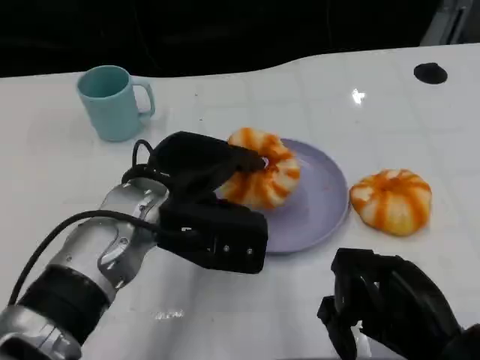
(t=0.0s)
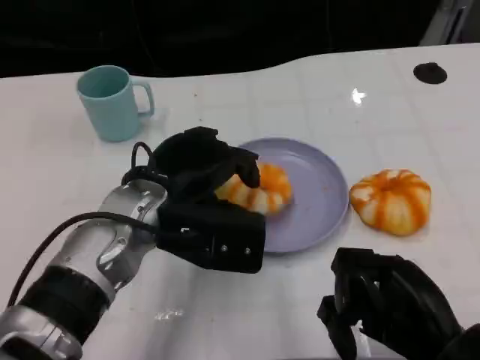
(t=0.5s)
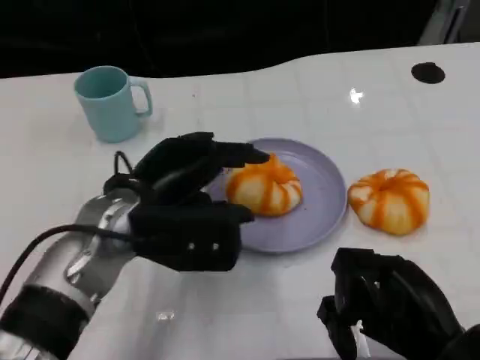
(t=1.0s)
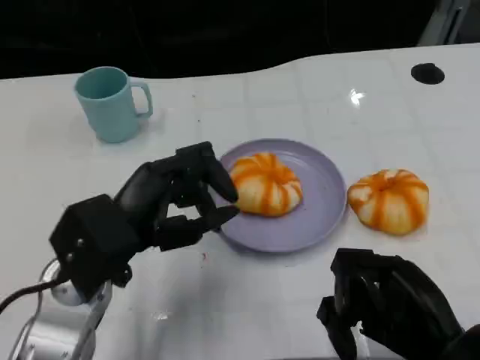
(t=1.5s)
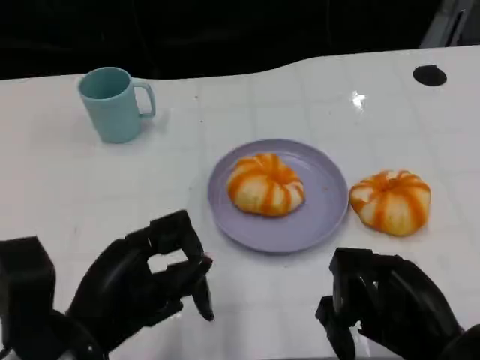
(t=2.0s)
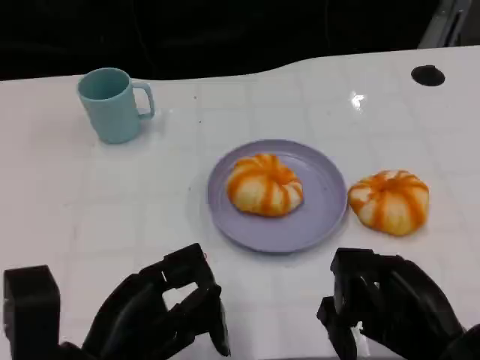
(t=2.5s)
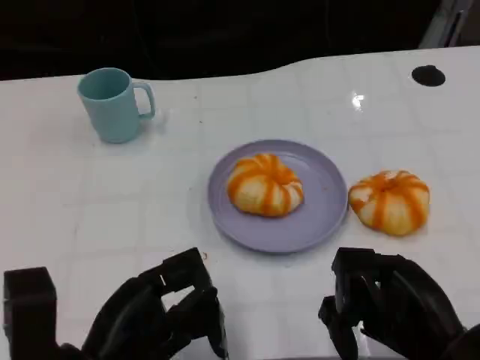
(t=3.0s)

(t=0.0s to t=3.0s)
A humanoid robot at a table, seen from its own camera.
Task of the whole recording: Grasp the bread from the table and place it into the plate.
t=0.0s - t=1.5s: The left hand shifts about 10 cm to the left and backward.
t=1.5s - t=3.0s: The left hand shifts approximately 10 cm backward.

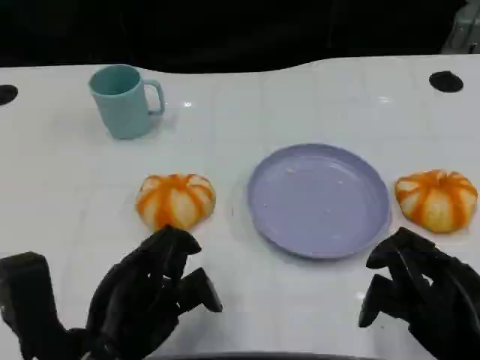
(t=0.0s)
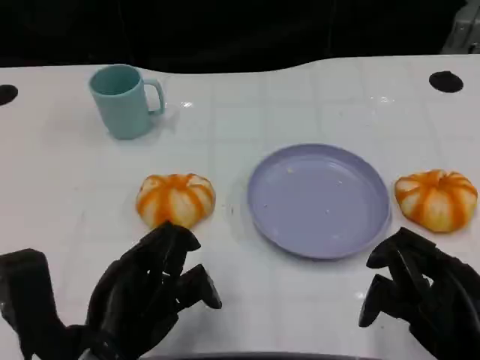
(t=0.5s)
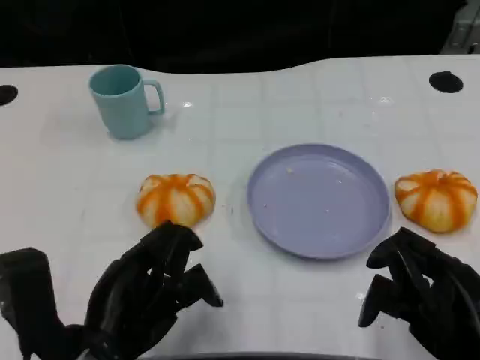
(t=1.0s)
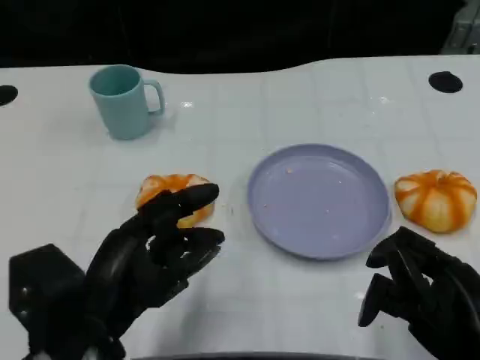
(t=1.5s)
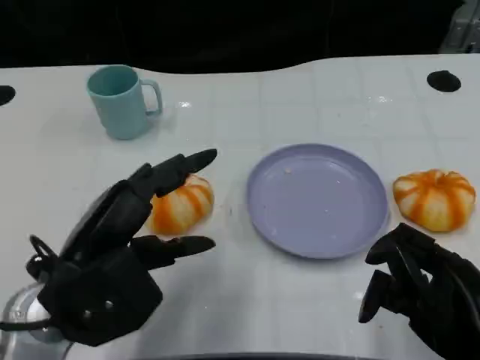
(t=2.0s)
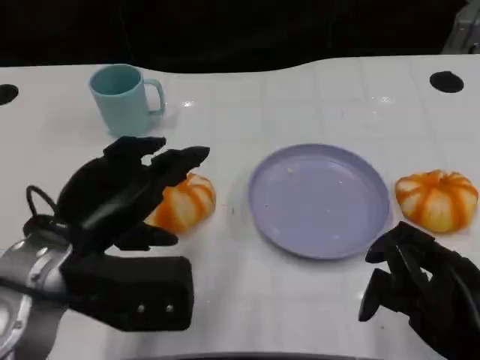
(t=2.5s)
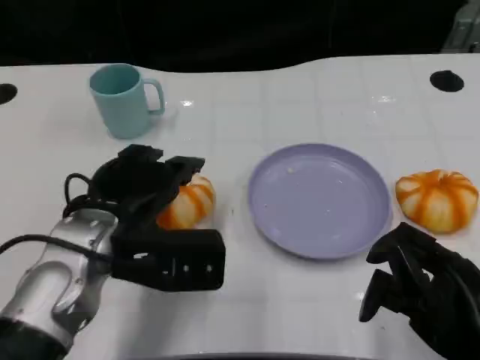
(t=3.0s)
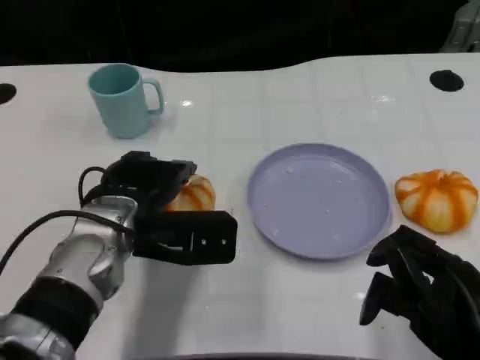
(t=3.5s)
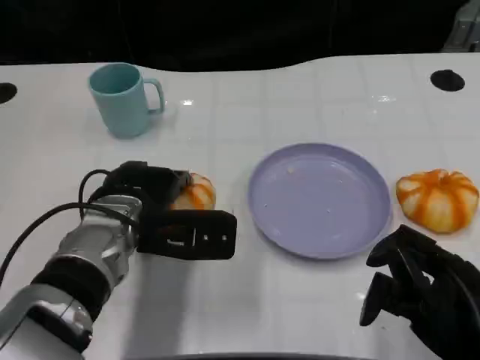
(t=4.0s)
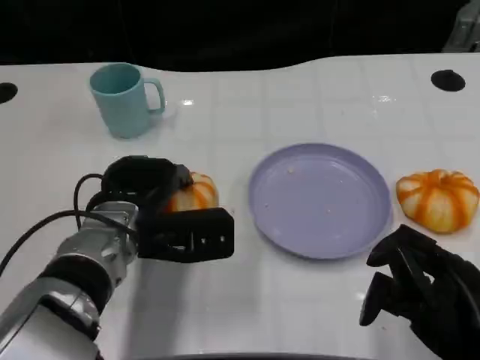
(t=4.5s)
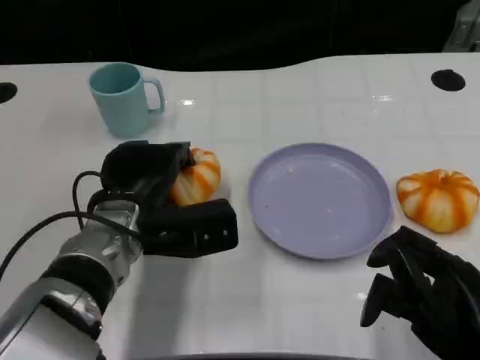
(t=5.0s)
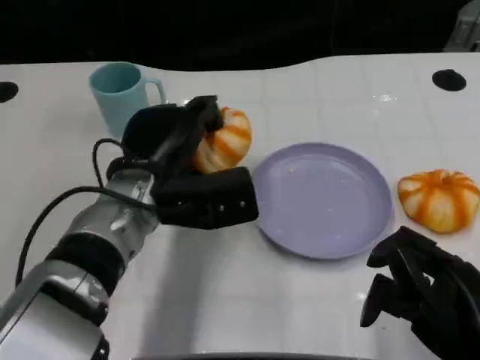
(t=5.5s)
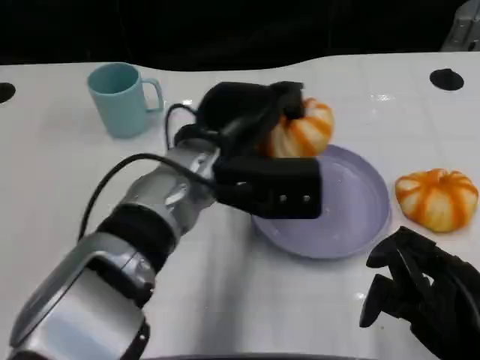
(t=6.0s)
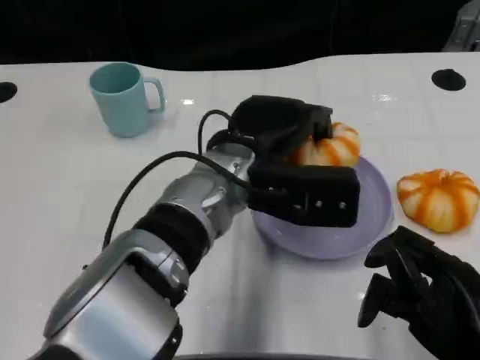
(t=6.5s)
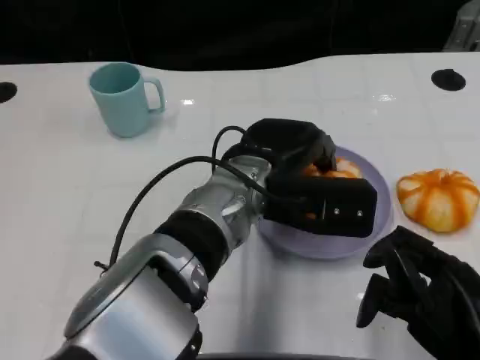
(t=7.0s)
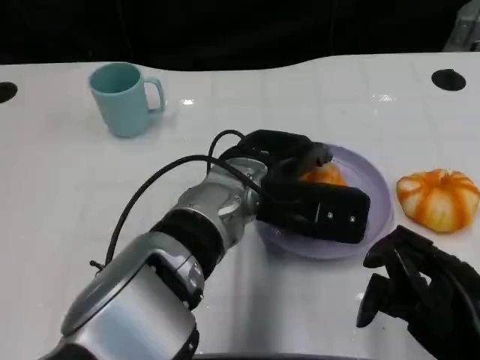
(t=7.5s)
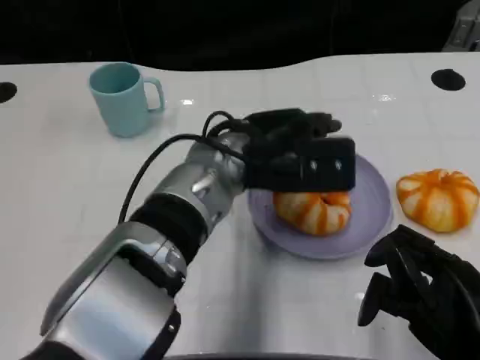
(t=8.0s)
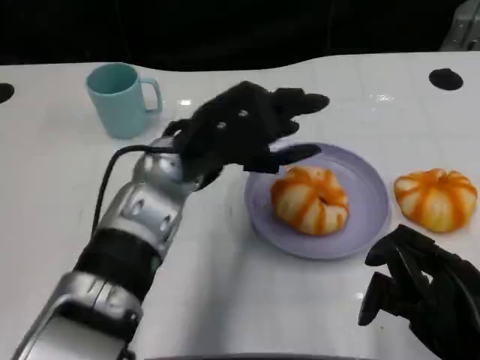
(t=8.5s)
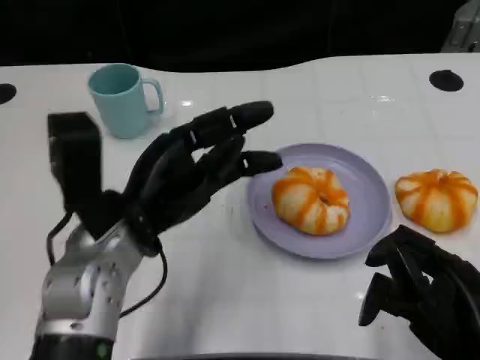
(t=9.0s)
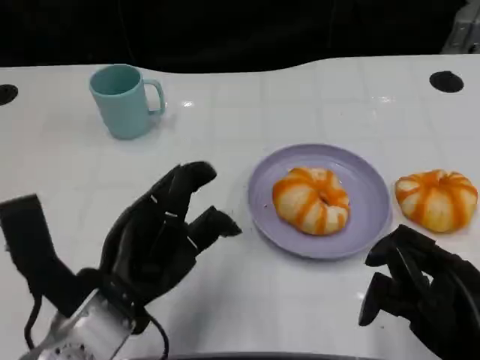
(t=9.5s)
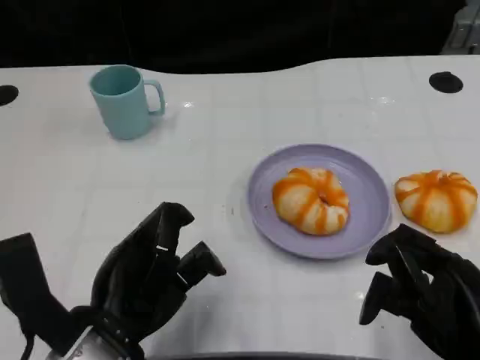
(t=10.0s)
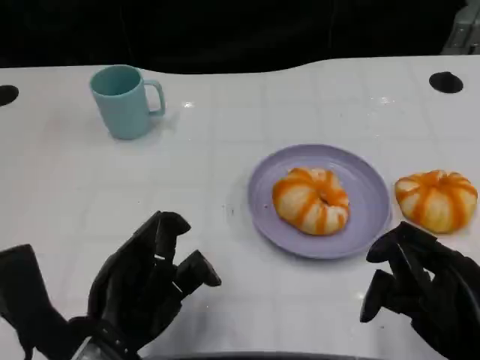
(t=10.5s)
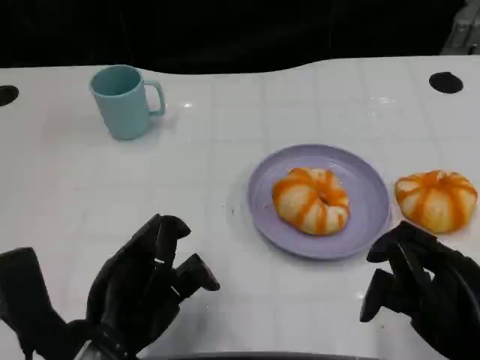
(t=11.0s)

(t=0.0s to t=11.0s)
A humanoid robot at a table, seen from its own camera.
Task of the whole recording: Grasp the bread from the table and place it into the plate.
t=0.0s - t=2.0s: The left hand ends up some 5 cm from where it was.
t=2.0s - t=3.5s: The left hand shifts about 10 cm forward and to the right.
t=5.5s - t=7.5s: The left hand is displaced to the right by some 10 cm.
t=7.5s - t=9.0s: The left hand shifts about 15 cm to the left.
t=9.0s - t=11.0s: The left hand moves backward, about 10 cm.

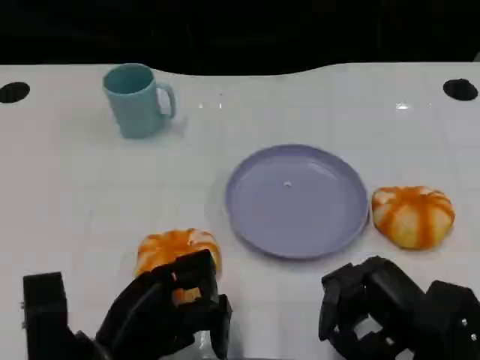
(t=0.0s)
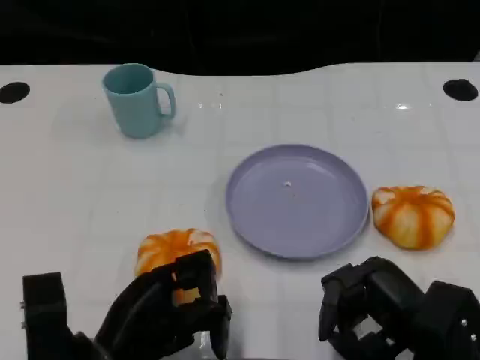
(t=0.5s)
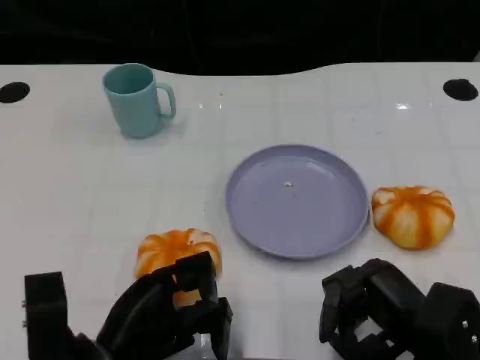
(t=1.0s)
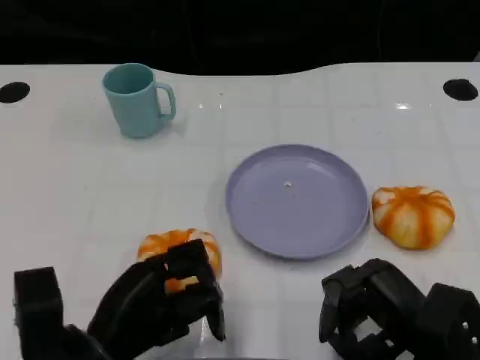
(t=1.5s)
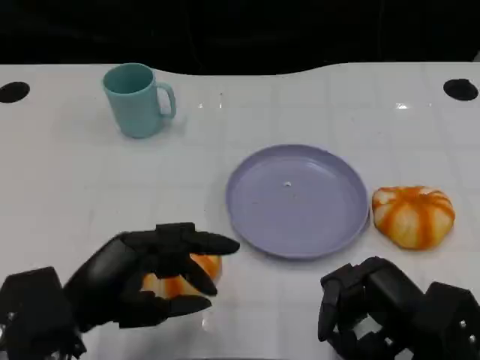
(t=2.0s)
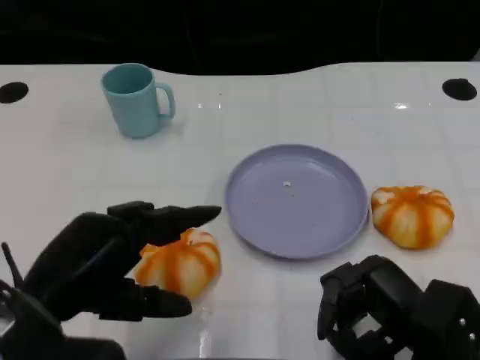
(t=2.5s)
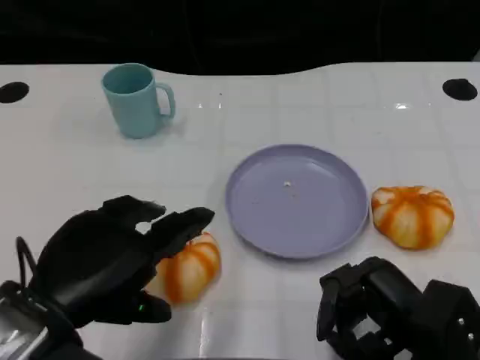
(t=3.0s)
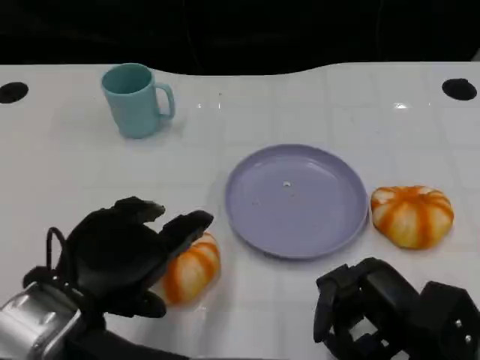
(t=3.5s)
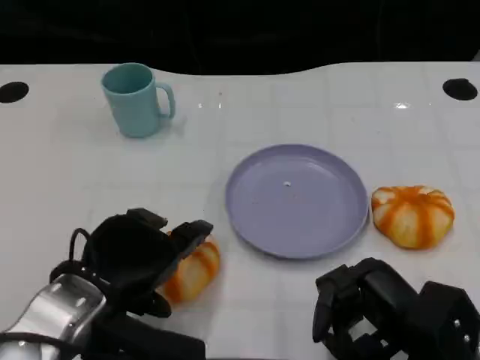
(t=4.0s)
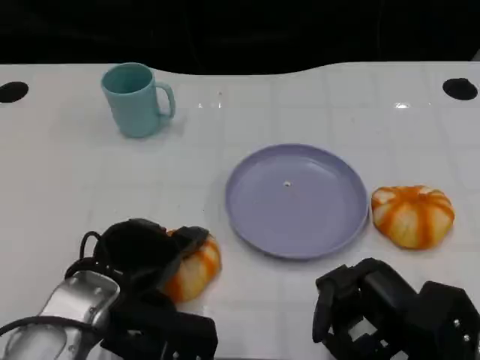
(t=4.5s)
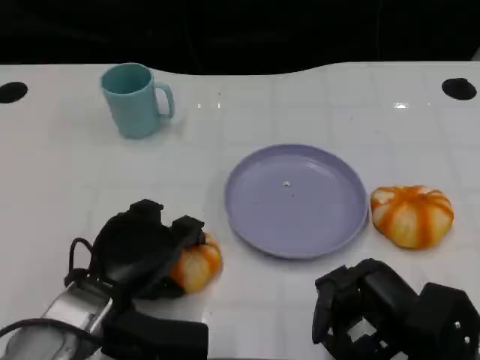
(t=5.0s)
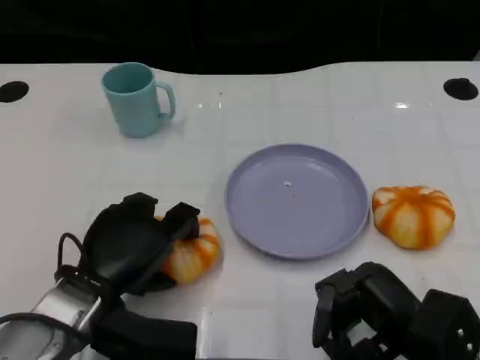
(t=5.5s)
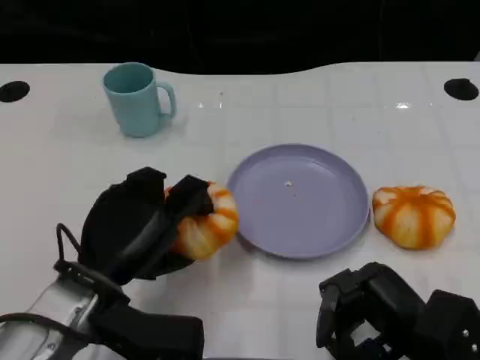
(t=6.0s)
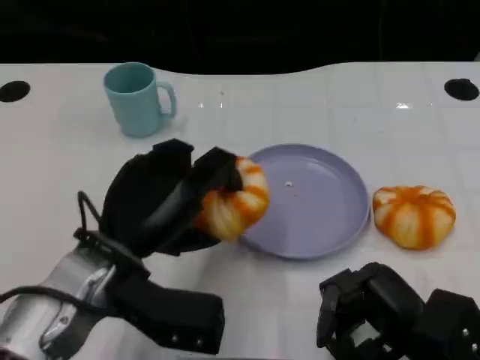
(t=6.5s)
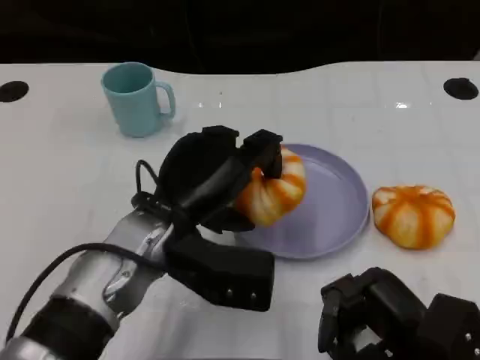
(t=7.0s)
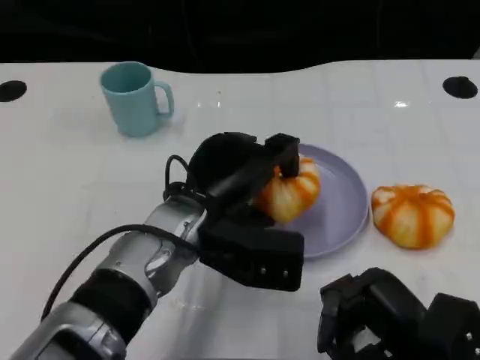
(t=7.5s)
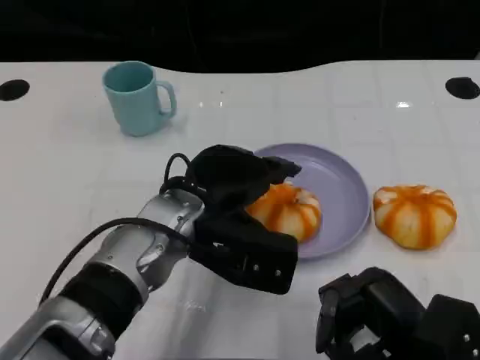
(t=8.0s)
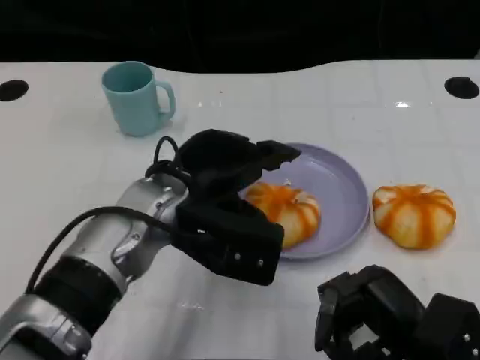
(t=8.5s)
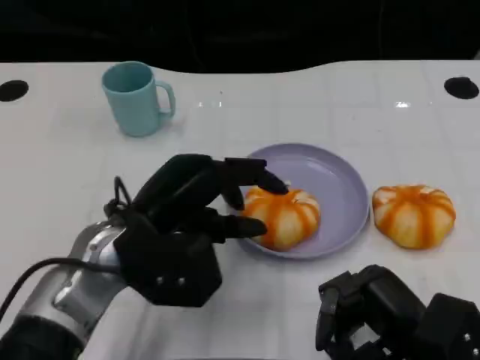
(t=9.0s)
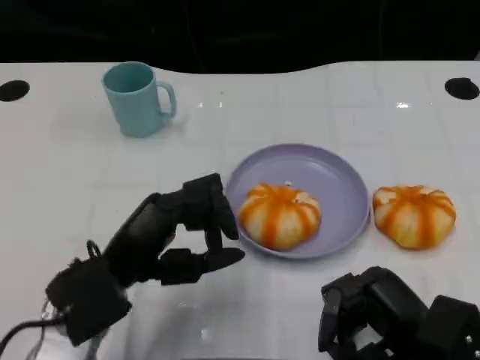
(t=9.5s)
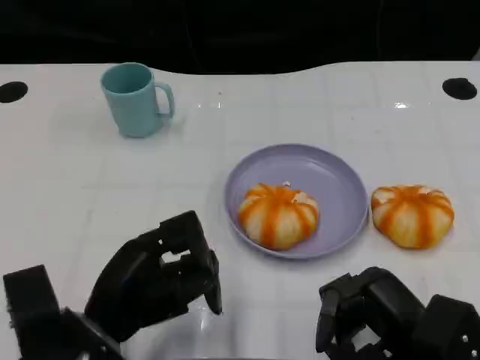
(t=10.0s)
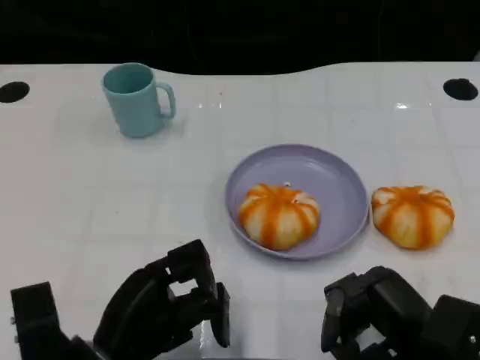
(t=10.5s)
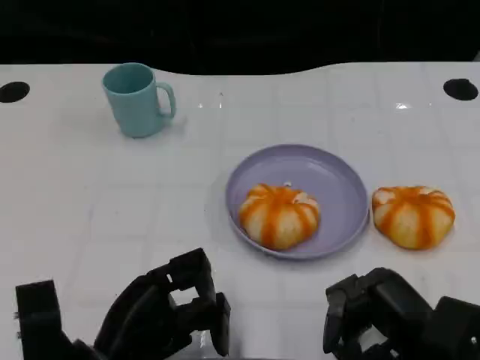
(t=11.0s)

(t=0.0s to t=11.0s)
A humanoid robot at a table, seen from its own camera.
Task of the whole recording: Grasp the bread from the table and place it into the plate.
t=0.0s - t=2.0s: The left hand is displaced upward by some 5 cm.
t=3.5s - t=5.5s: The left hand moves downward, roughly 5 cm.
t=5.5s - t=7.5s: The left hand heads to the right, upward and forward, covering roughly 15 cm.
t=7.5s - t=9.0s: The left hand is displaced to the left by approximately 5 cm.
t=9.0s - t=11.0s: The left hand goes about 10 cm backward and downward.
